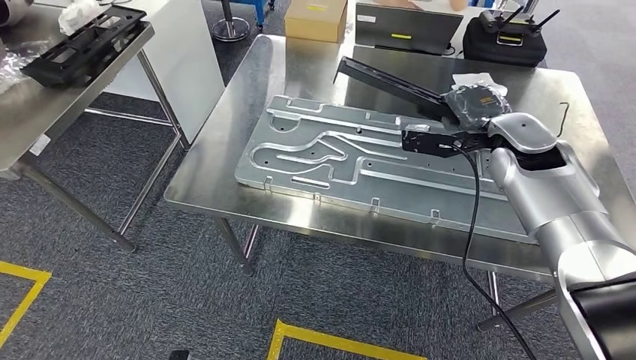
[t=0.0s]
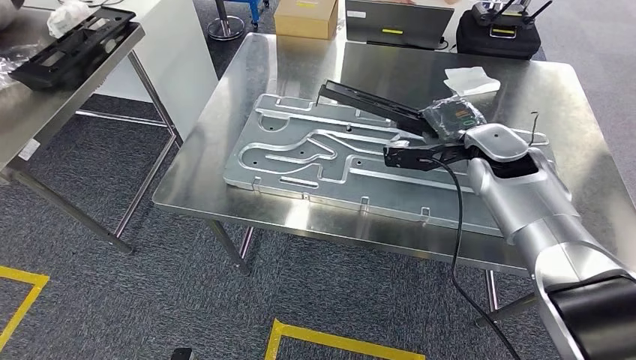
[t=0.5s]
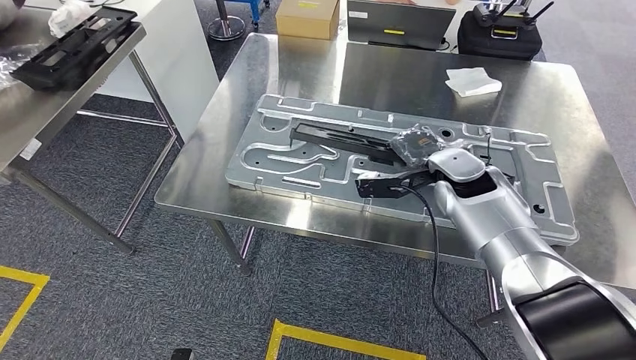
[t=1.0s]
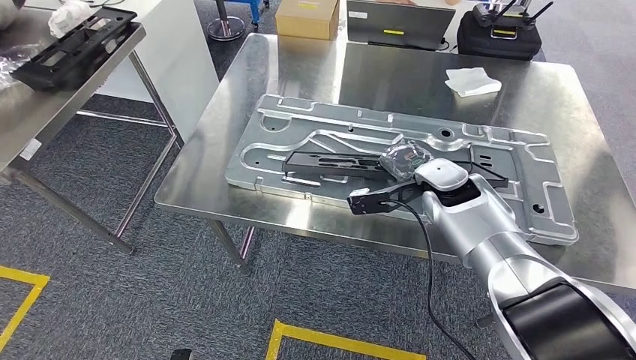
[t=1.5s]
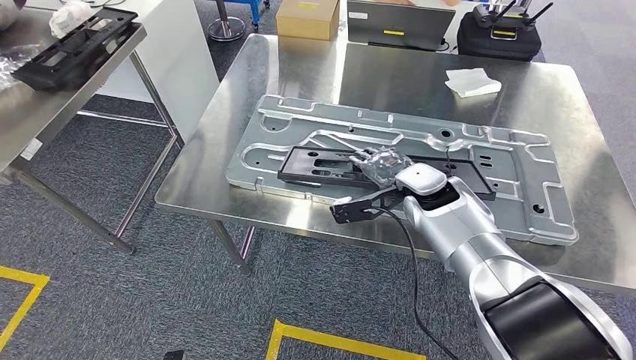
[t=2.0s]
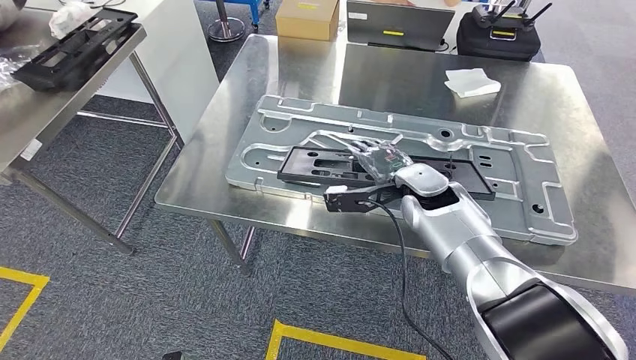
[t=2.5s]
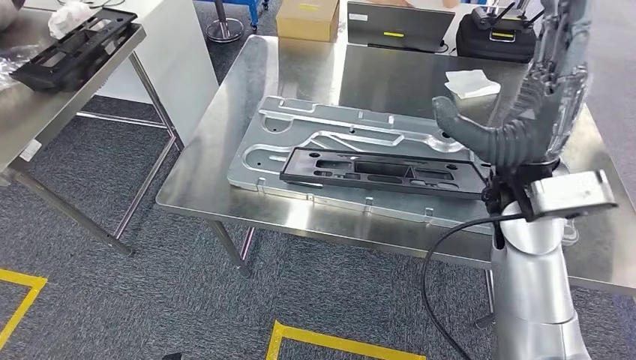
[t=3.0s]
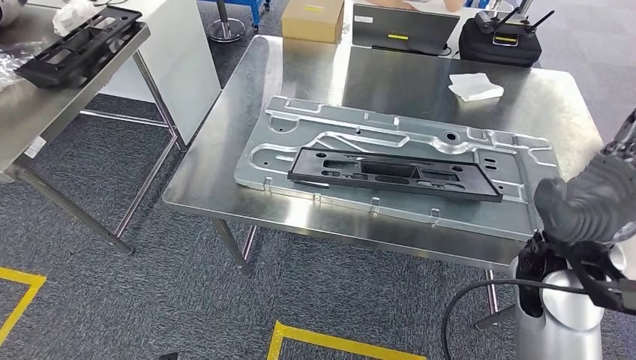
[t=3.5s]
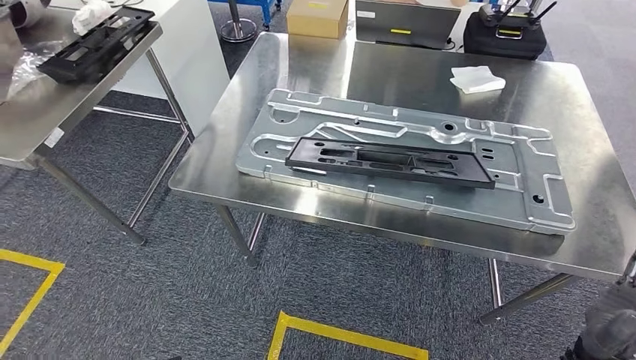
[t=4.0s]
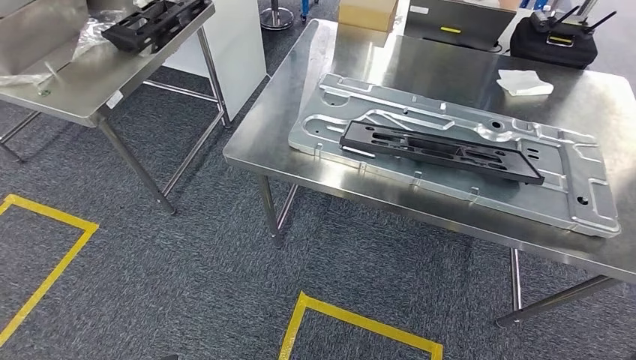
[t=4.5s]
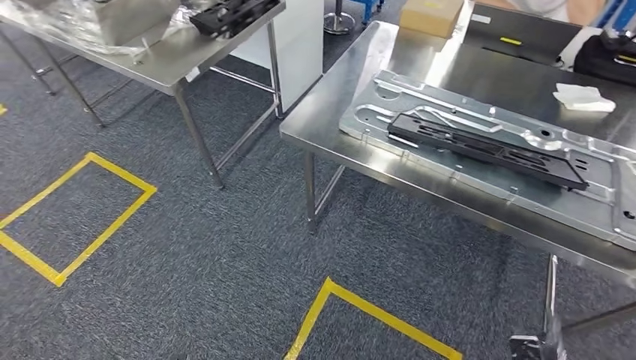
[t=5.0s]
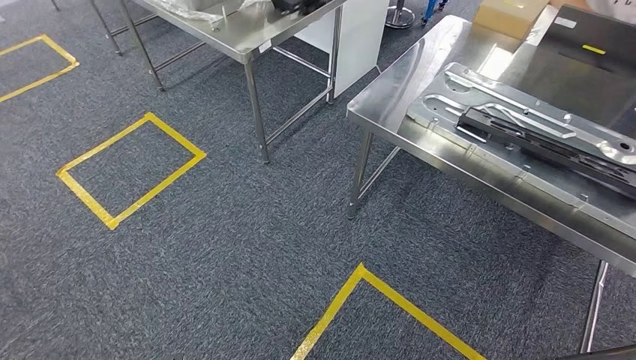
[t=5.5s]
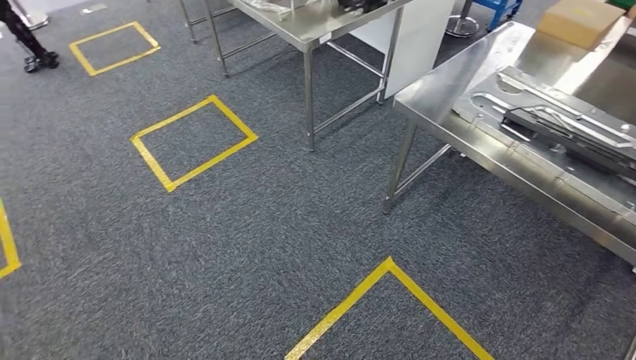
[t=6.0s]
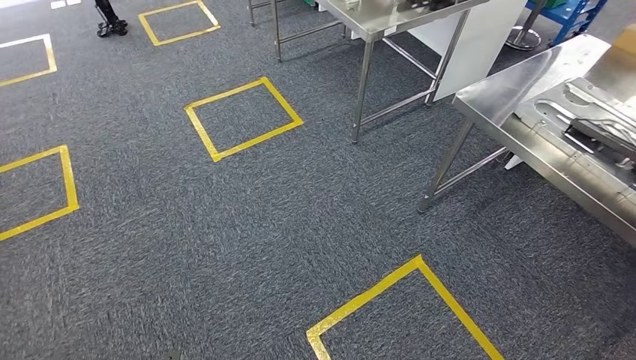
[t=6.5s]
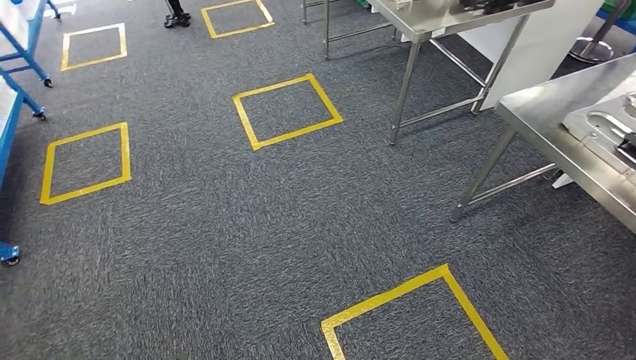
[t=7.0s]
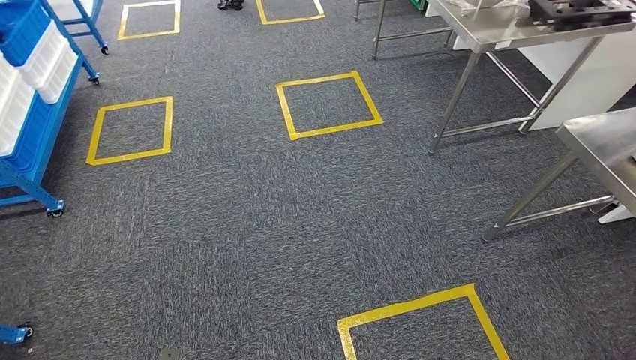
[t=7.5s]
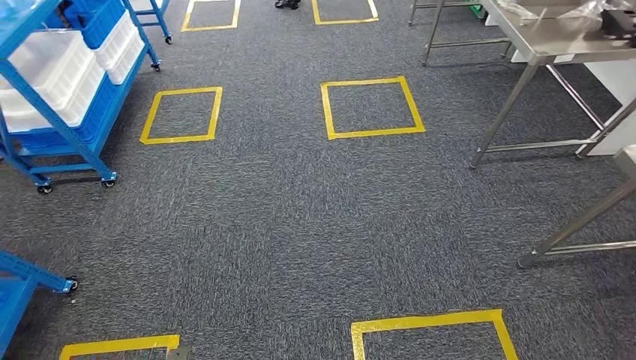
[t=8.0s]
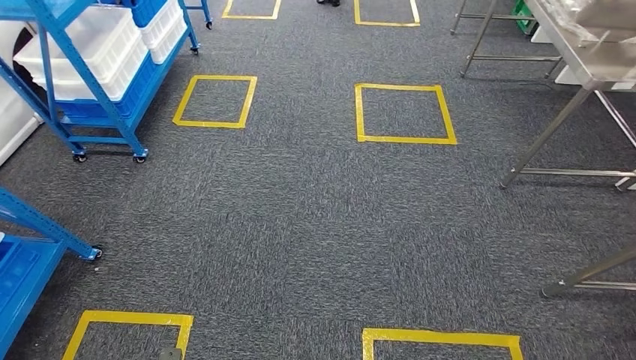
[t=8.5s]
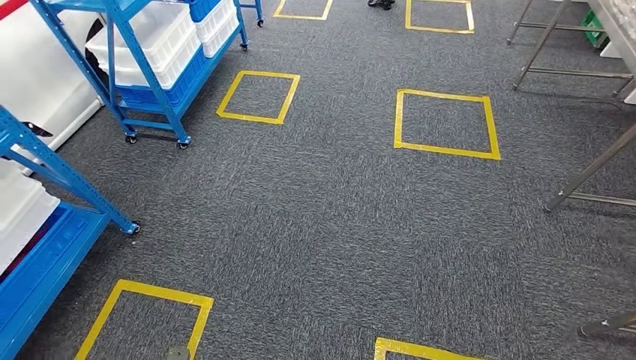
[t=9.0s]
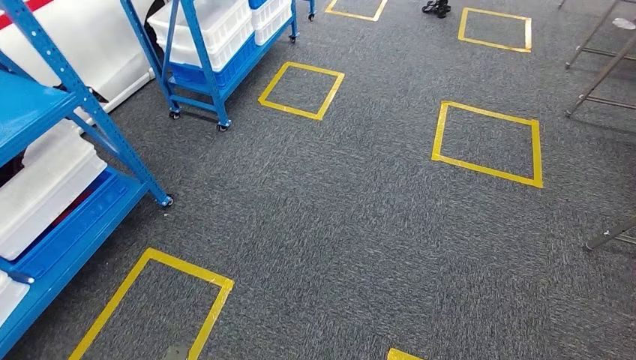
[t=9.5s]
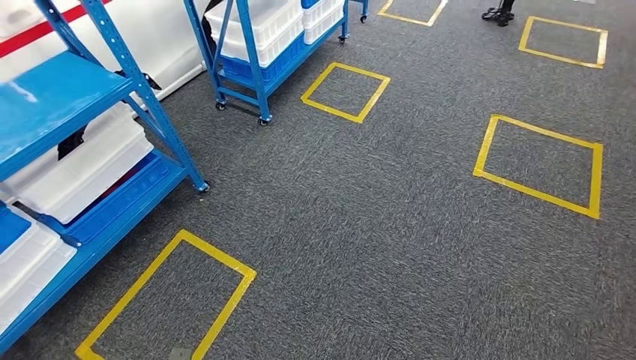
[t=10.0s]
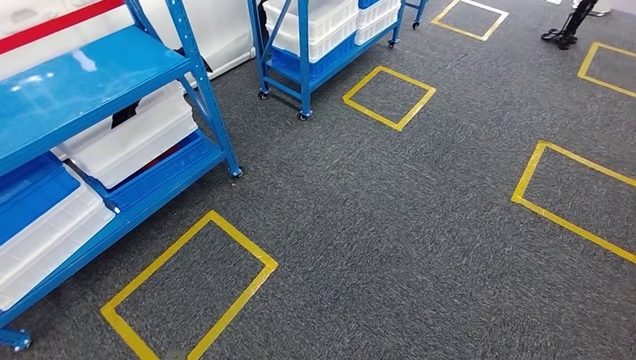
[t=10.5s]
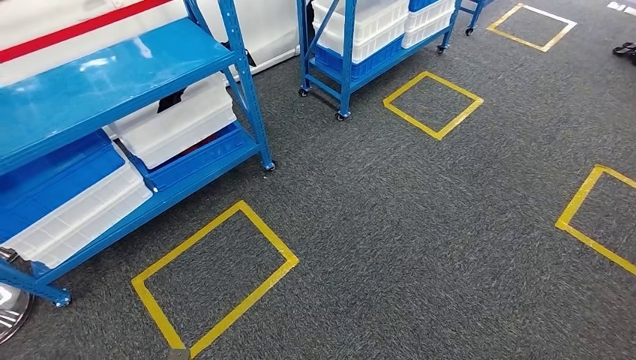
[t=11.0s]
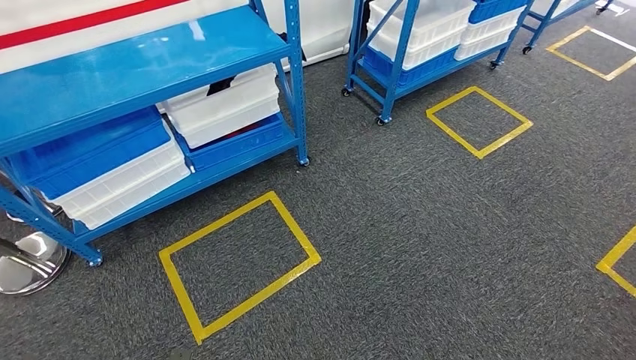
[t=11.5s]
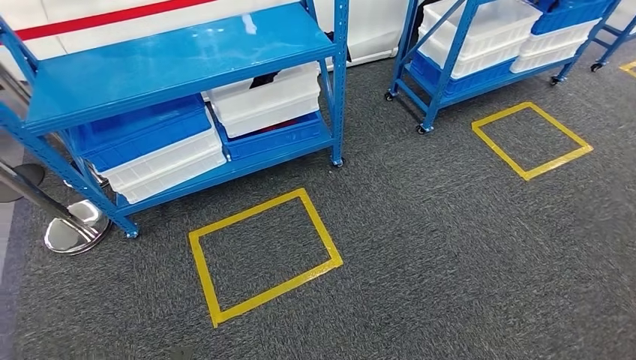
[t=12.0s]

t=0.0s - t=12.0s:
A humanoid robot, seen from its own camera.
Step, t=0.0s - t=4.5s: Insert the large material into the corresponding slot on the workbench.

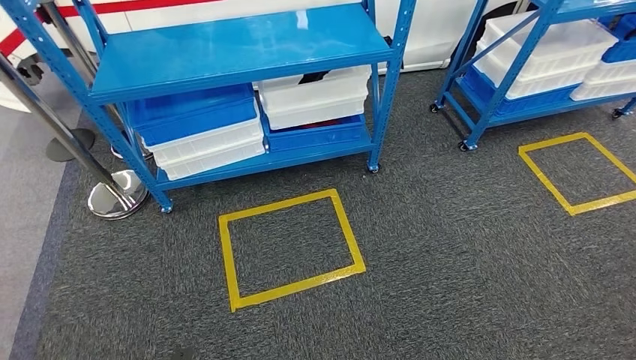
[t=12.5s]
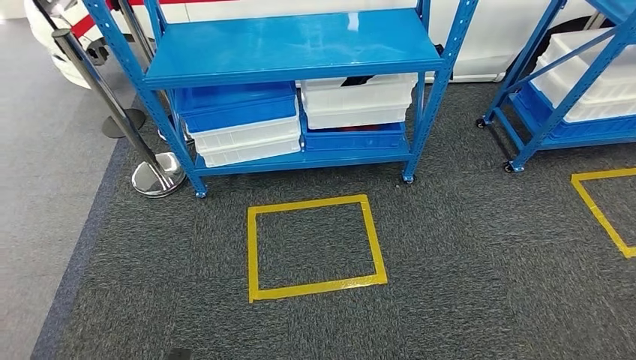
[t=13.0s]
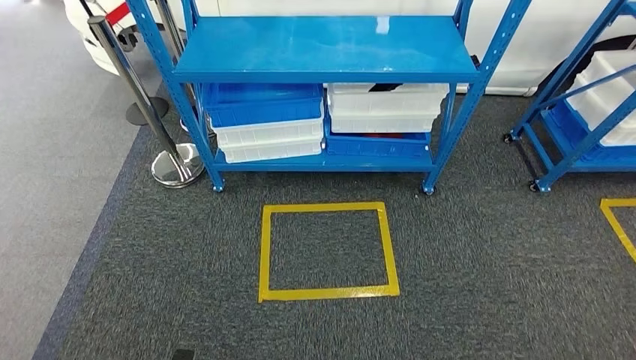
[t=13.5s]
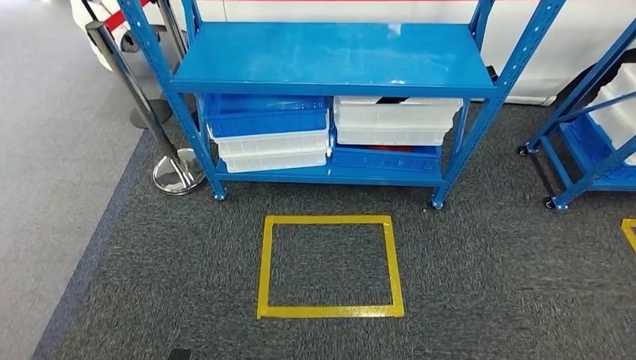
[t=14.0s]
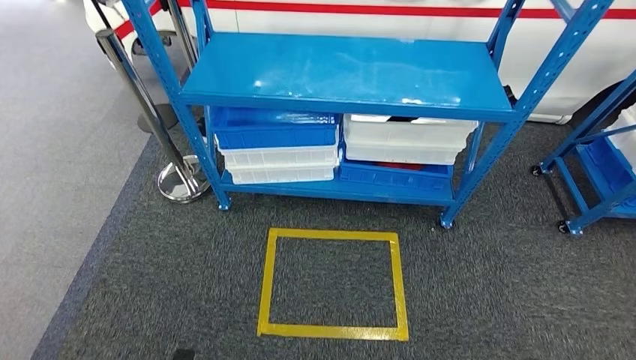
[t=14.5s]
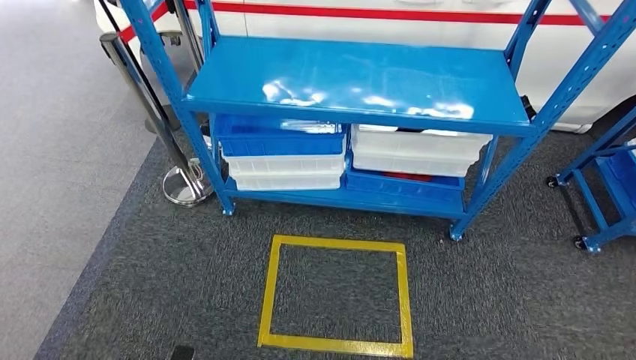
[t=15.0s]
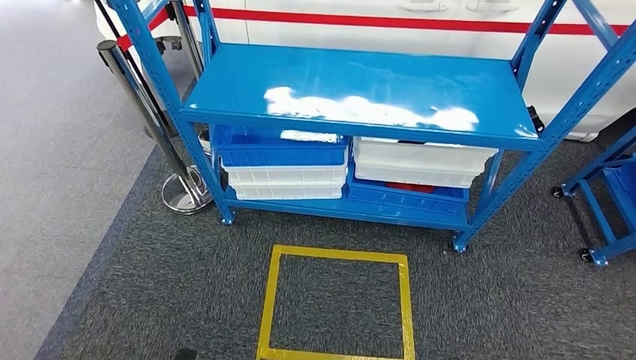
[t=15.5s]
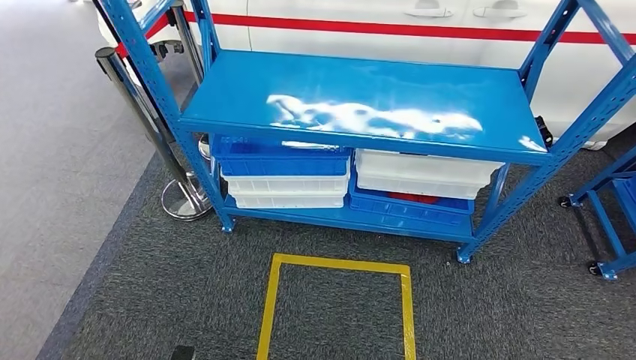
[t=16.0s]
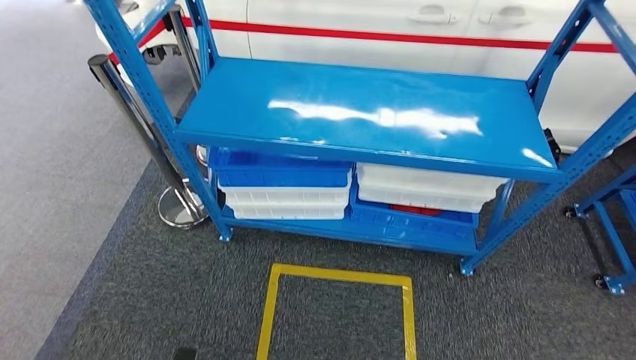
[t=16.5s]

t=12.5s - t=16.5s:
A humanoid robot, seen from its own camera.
Step, t=12.5s - t=16.5s: Return to the initial position at the shelf.
